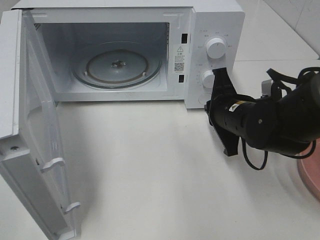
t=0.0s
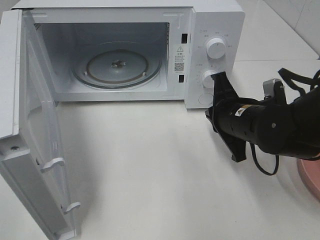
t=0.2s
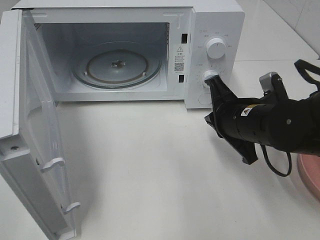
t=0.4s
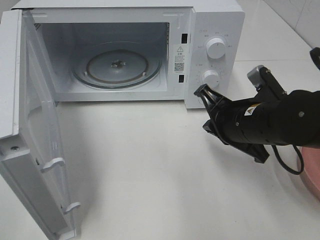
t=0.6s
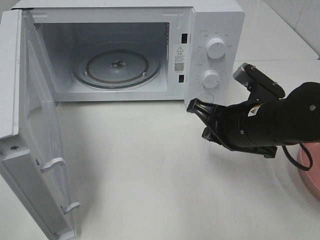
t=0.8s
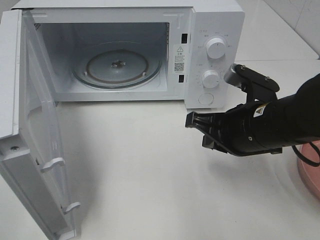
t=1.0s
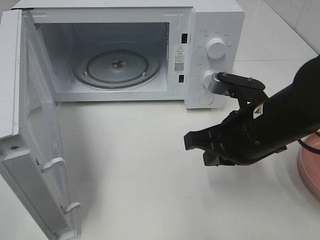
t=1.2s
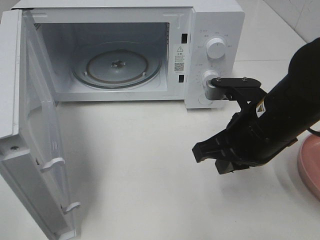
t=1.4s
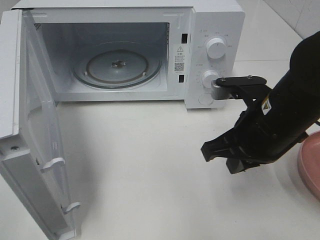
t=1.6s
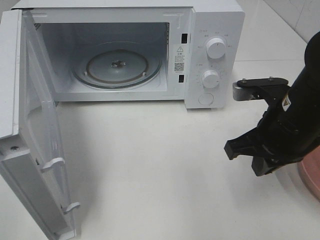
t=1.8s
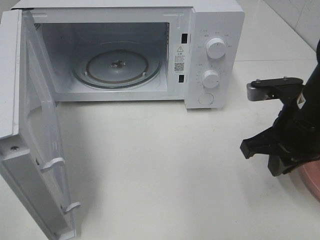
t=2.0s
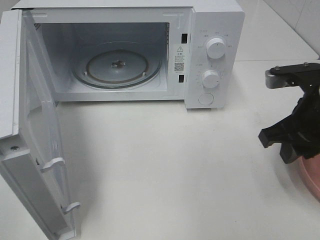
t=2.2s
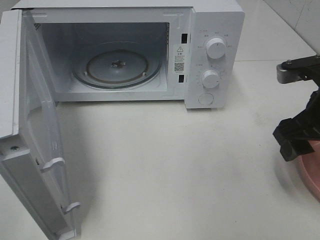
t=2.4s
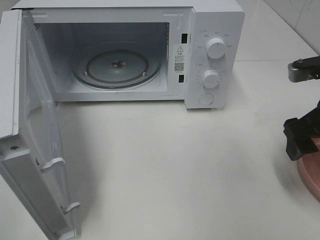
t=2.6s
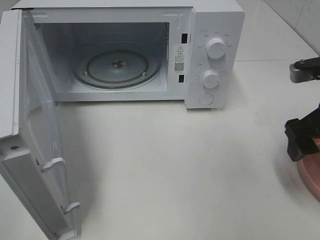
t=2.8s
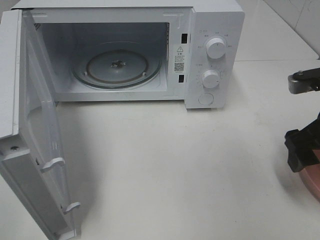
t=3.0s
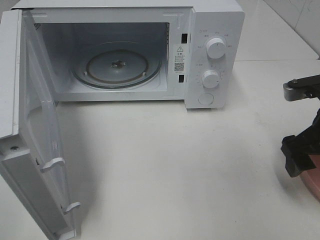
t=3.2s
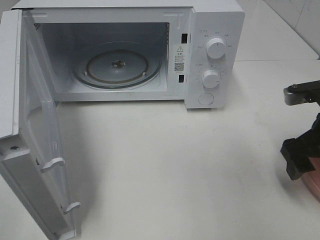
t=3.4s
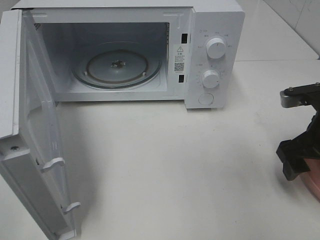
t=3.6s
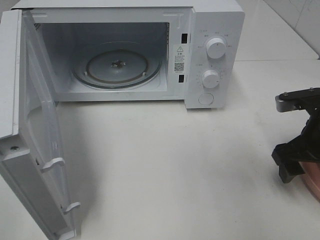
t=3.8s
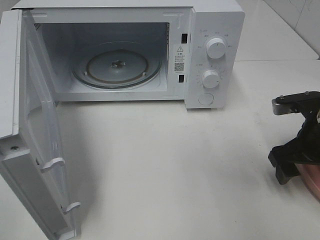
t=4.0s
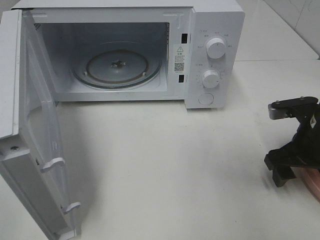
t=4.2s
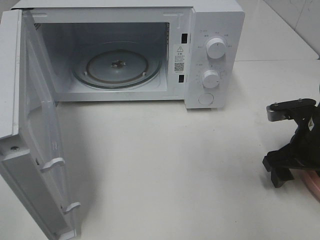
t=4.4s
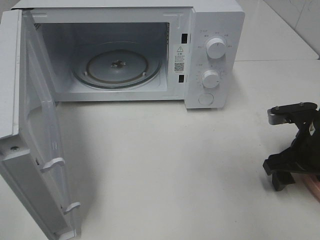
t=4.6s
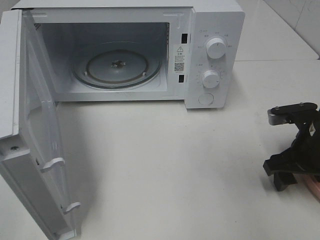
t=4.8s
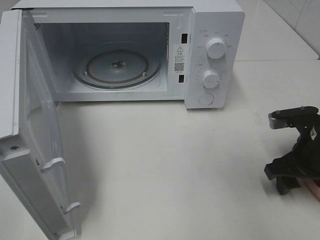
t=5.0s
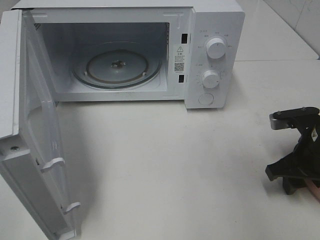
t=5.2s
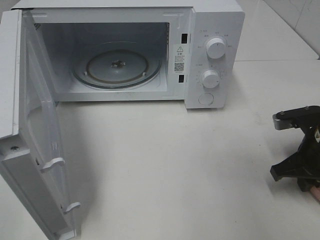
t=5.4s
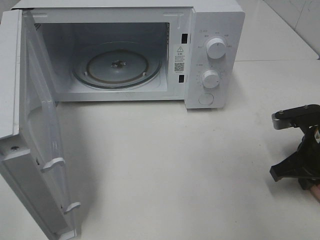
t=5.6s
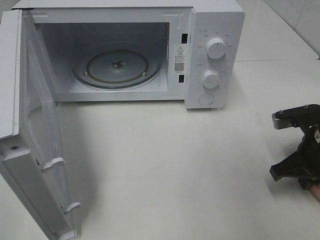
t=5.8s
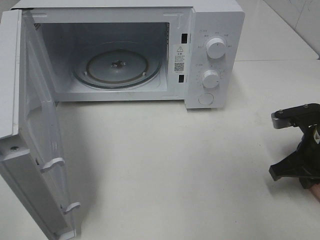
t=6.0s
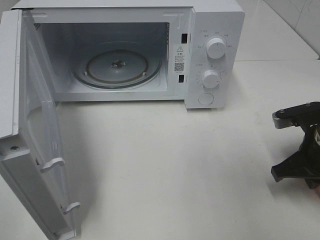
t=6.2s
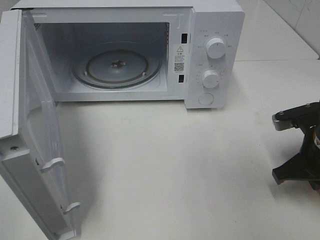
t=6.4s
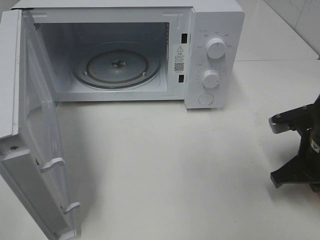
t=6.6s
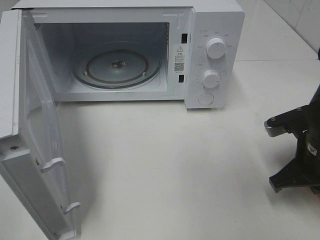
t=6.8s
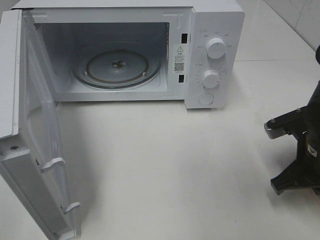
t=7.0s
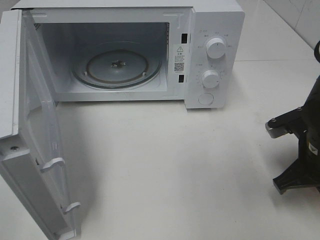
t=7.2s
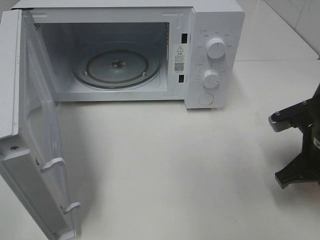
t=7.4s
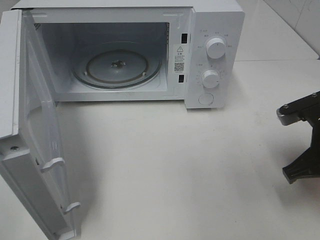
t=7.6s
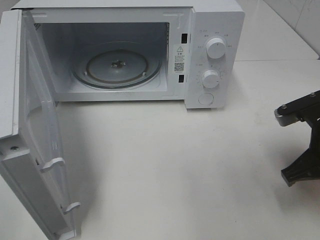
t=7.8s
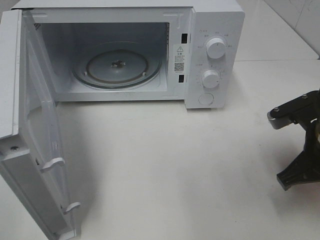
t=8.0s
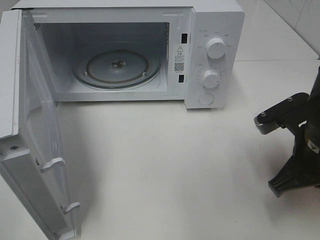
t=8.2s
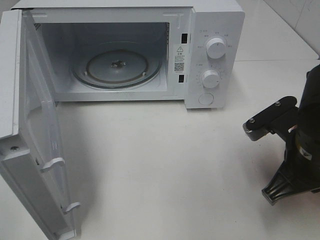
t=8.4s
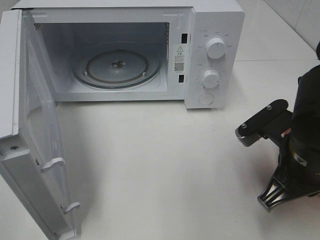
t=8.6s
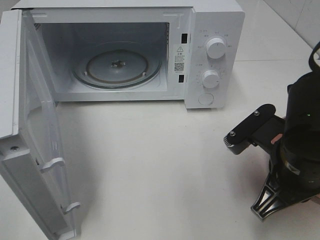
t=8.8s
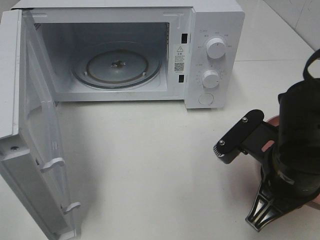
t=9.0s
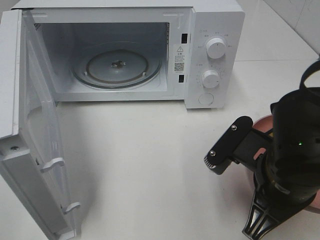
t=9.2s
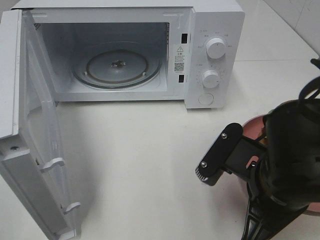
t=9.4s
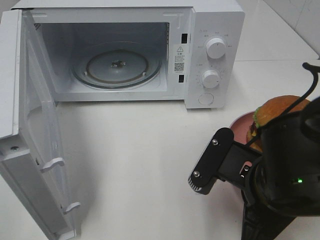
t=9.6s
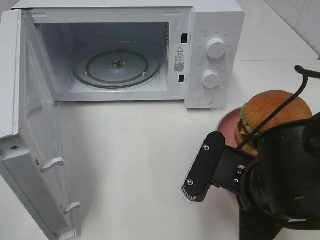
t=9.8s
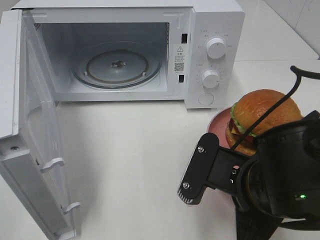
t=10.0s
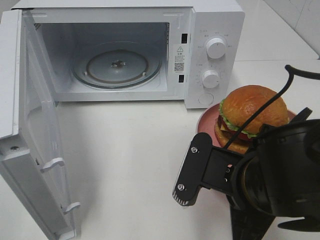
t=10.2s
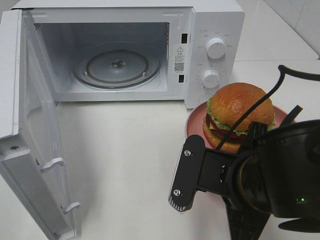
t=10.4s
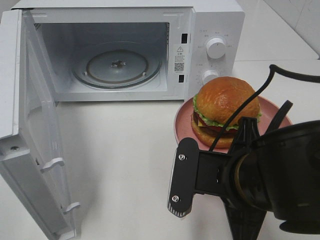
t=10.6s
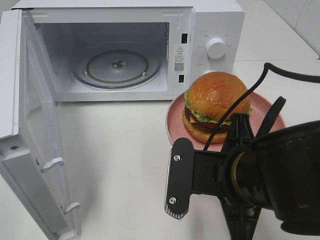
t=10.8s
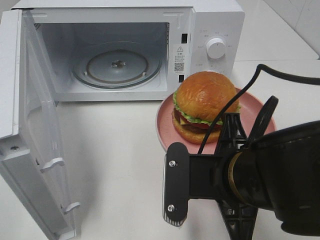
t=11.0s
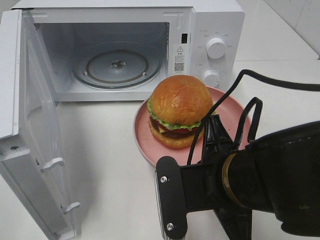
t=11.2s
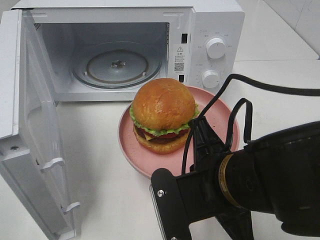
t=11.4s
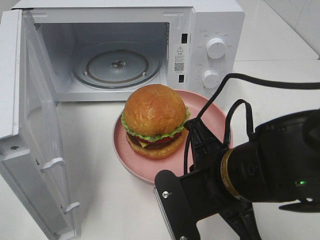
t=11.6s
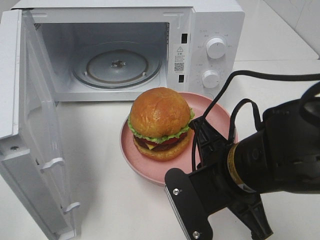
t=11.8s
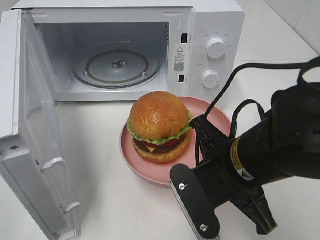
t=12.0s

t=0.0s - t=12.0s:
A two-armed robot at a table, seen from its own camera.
Task of the whole recording: Heat the burger.
Step, t=0.0s - t=5.6s: Right hand: grab the plate with the hamburger.
t=0.0s - t=1.6s: The right gripper goes some 10 cm backward and upward.
t=1.6s - t=3.0s: The right gripper travels to the right by approximately 10 cm, and opens.
t=3.0s - t=4.4s: The right gripper heads downward, covering some 10 cm.
t=4.4s - t=6.0s: The right gripper closes its fingers.
t=6.0s - t=7.6s: The right gripper ends up some 5 cm from where it was.
t=7.6s - t=9.0s: The right gripper moves to the left, approximately 10 cm.
t=9.0s - t=10.4s: The right gripper is displaced to the left by approximately 5 cm.

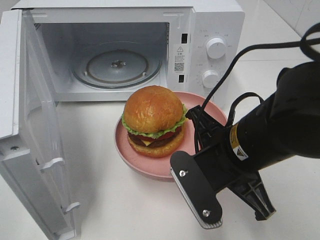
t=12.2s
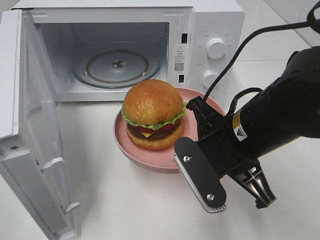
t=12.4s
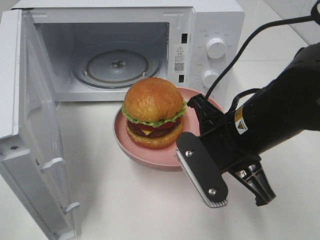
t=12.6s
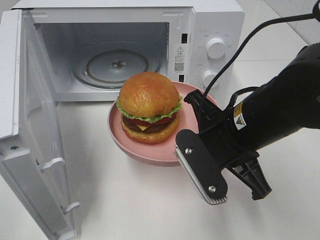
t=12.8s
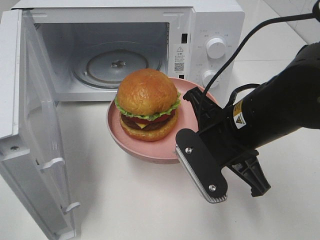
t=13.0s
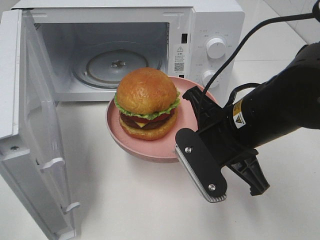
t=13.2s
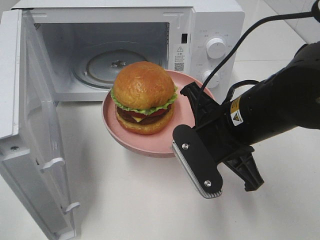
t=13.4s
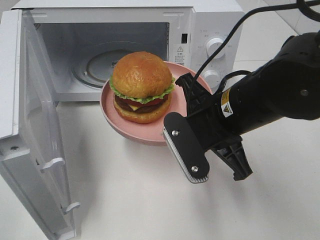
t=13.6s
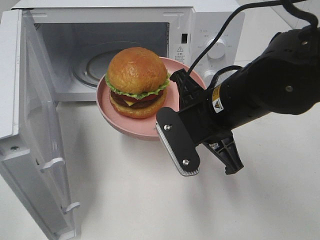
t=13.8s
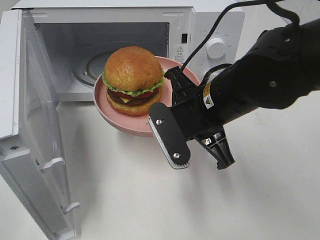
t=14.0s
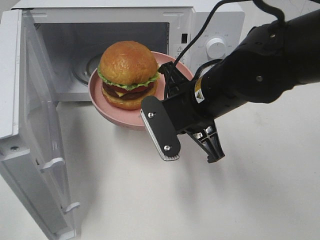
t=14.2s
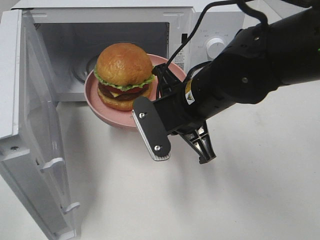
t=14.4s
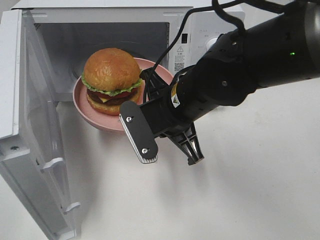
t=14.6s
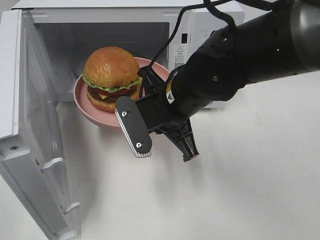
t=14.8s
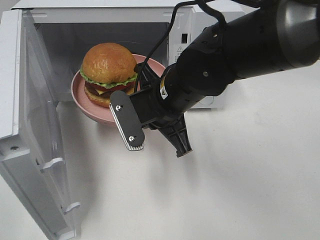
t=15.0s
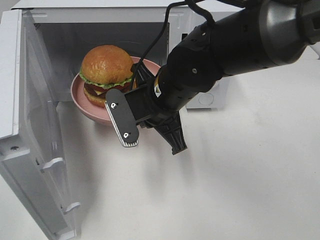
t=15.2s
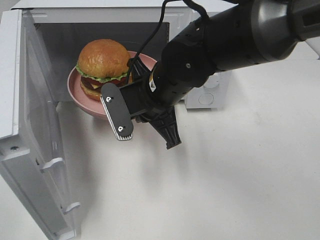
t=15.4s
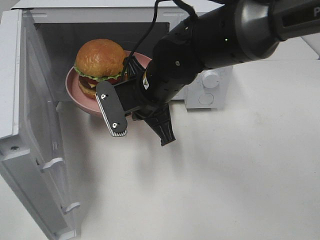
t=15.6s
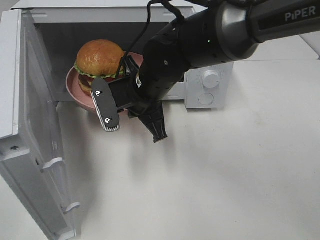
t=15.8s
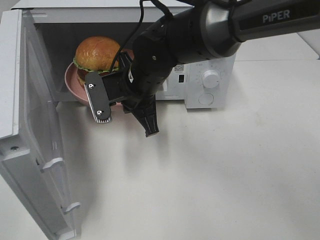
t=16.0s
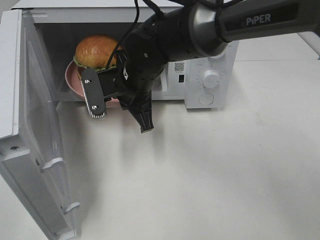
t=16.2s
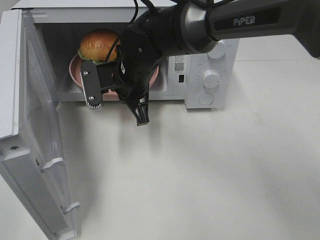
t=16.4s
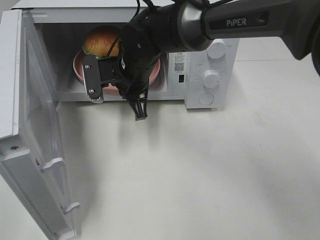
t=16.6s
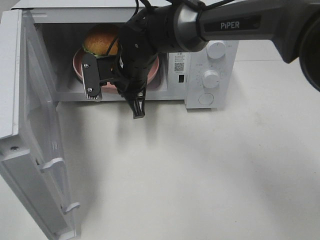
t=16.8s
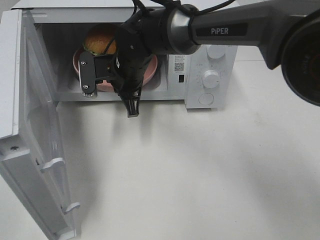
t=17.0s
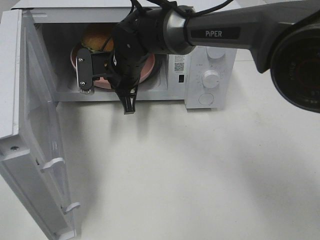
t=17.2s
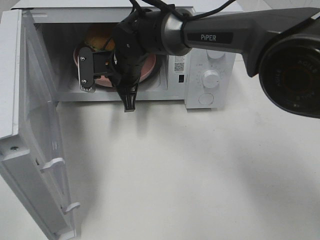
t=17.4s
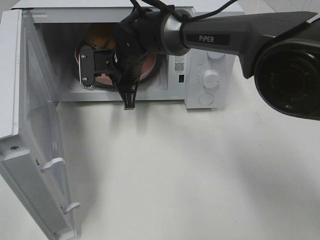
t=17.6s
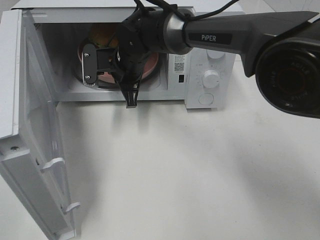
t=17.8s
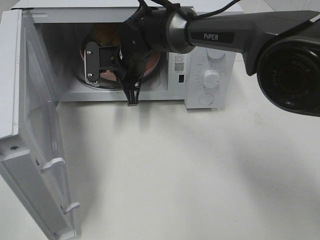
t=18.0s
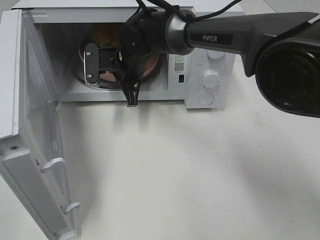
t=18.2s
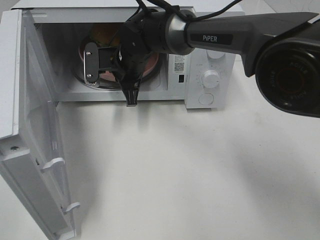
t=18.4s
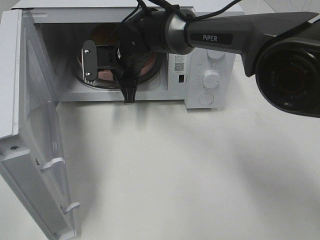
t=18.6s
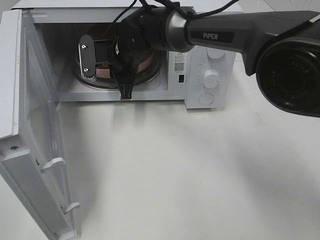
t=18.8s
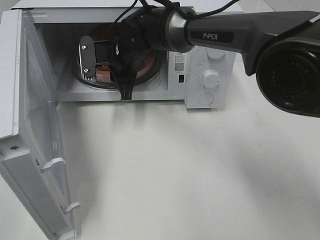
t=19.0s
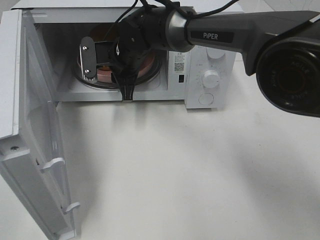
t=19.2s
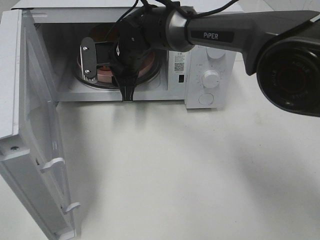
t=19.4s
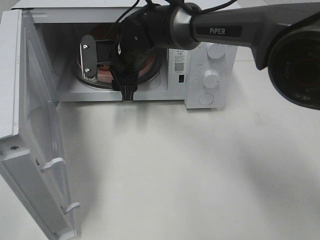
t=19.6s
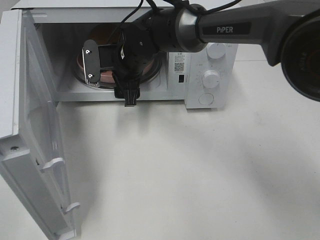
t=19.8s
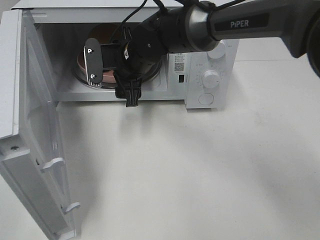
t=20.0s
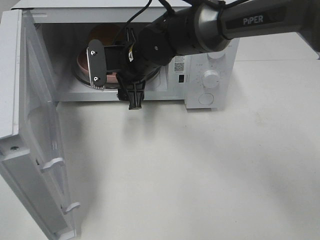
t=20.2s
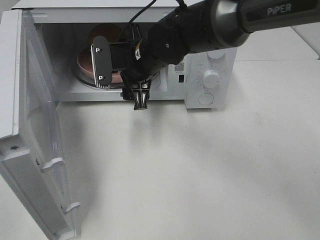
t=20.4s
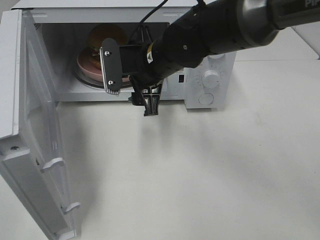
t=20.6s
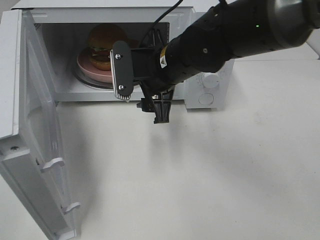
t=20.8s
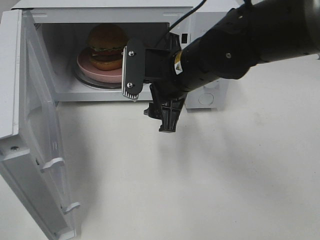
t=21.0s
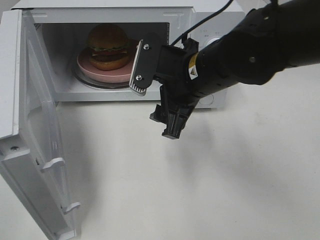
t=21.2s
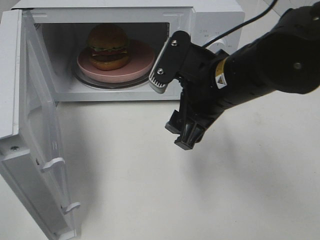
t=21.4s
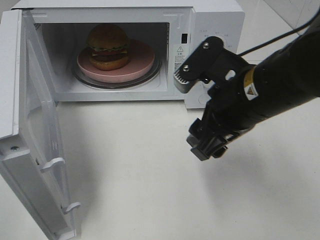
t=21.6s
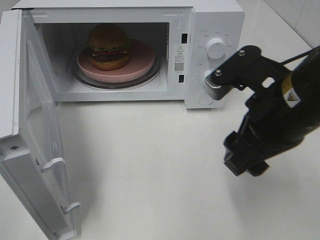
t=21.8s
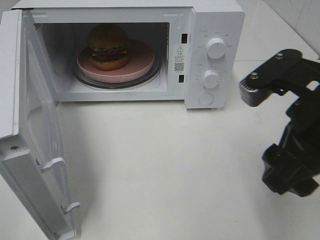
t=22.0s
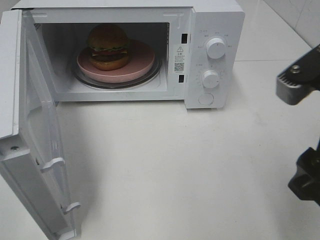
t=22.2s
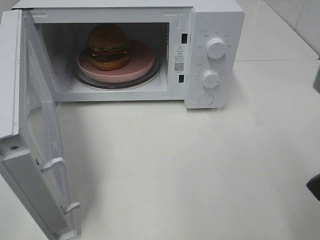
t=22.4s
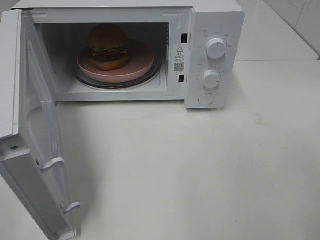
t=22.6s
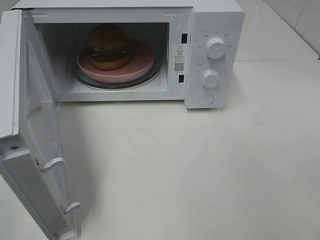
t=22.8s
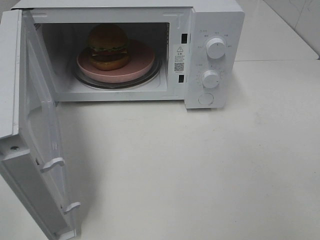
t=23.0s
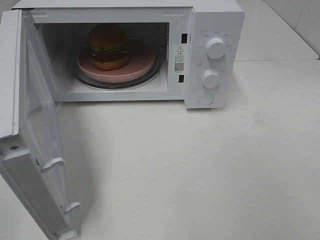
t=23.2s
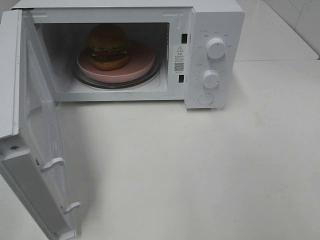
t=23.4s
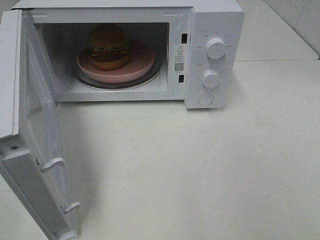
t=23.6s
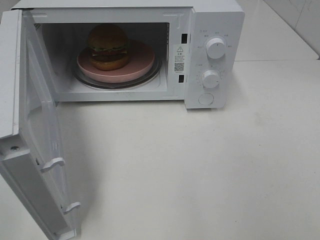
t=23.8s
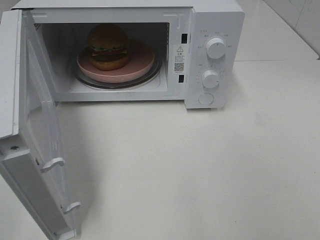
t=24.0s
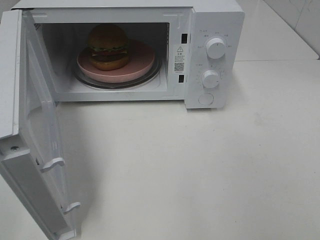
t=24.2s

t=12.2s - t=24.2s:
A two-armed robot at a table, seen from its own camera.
Task of the whole recording: Heat the burger.
Step, t=12.2s - t=19.0s: Right hand: place the plate in the microwave.
t=12.2s - t=13.8s: The right gripper moves forward, some 5 cm.
t=13.8s - t=15.2s: The right gripper is displaced to the left and forward by some 10 cm.
t=15.2s - t=16.6s: The right gripper heads forward and to the left, covering about 10 cm.
t=16.6s - t=18.2s: The right gripper moves roughly 5 cm.
t=18.2s - t=19.8s: The right gripper opens its fingers.
t=19.8s - t=21.2s: The right gripper travels backward and to the right by roughly 15 cm.
t=21.2s - t=22.6s: The right gripper goes some 25 cm backward, to the right and upward.
